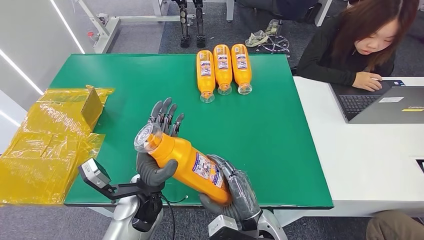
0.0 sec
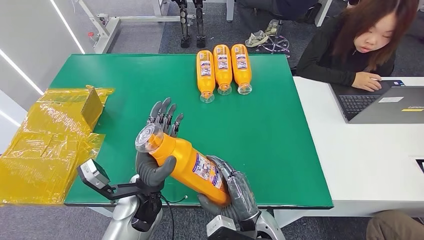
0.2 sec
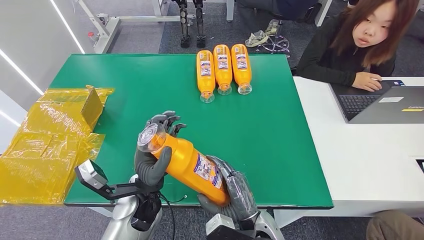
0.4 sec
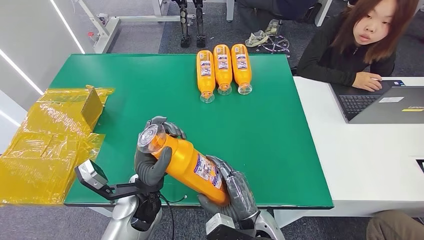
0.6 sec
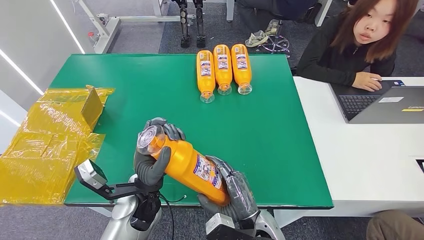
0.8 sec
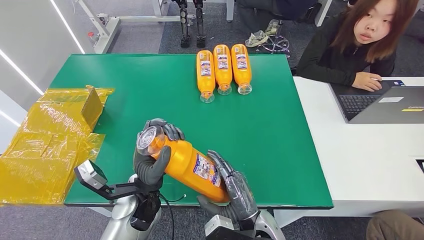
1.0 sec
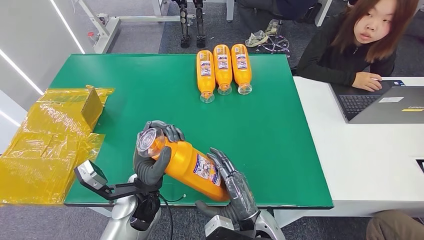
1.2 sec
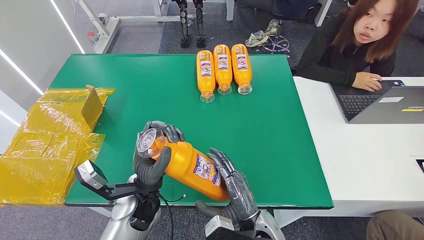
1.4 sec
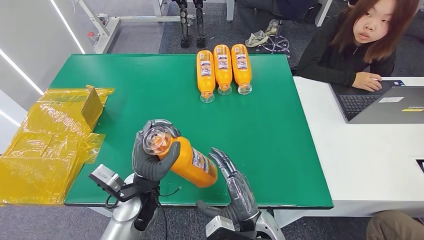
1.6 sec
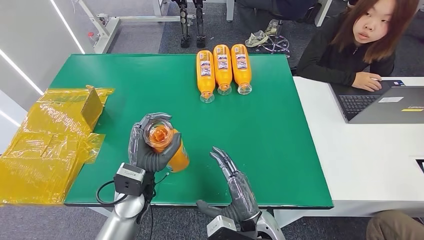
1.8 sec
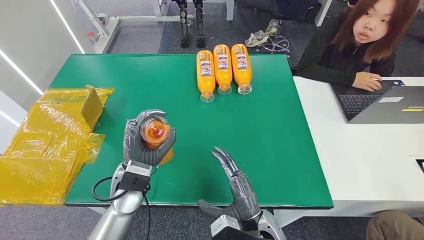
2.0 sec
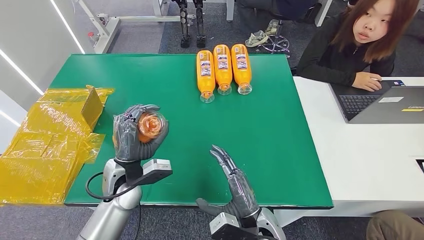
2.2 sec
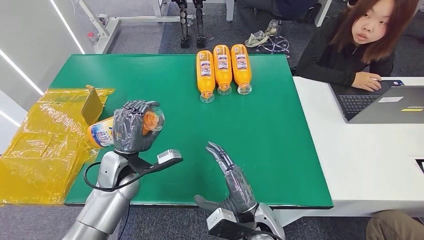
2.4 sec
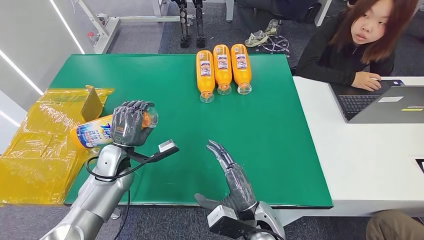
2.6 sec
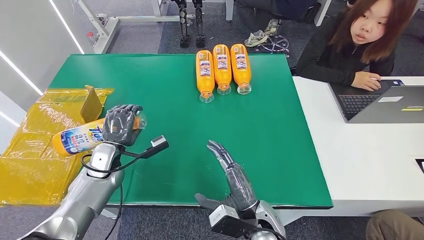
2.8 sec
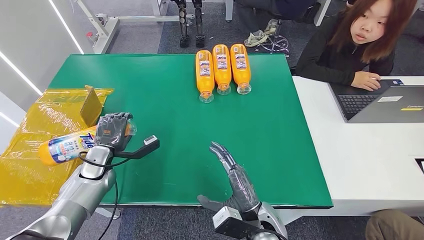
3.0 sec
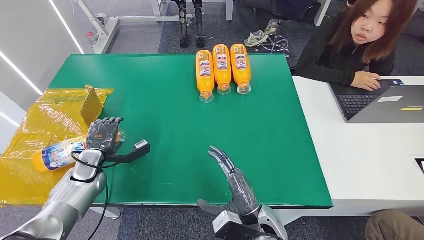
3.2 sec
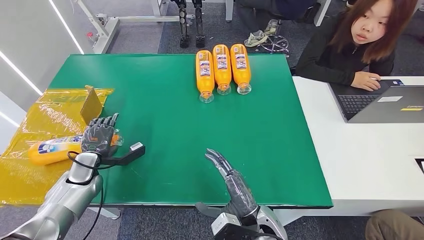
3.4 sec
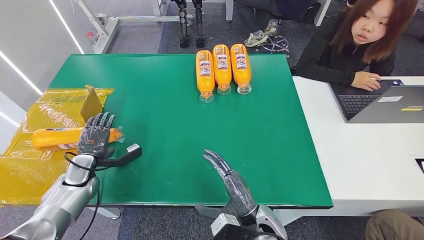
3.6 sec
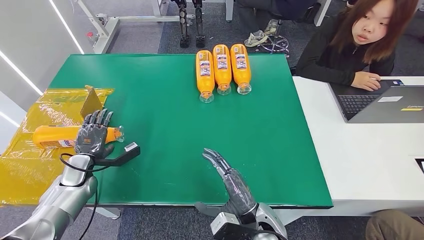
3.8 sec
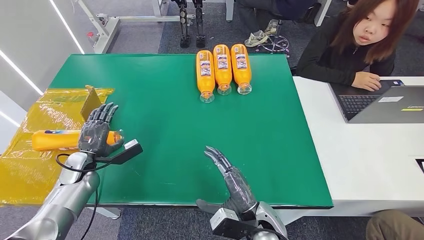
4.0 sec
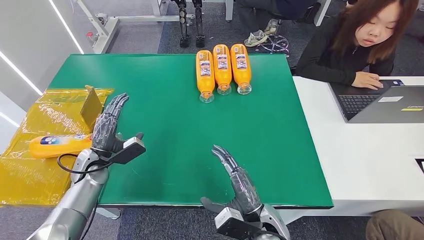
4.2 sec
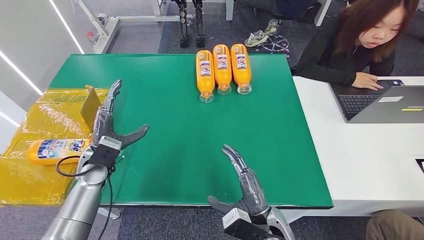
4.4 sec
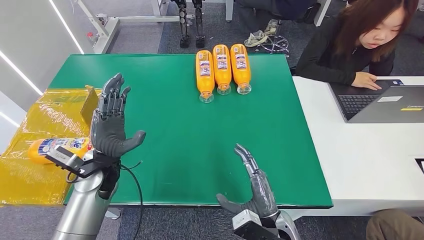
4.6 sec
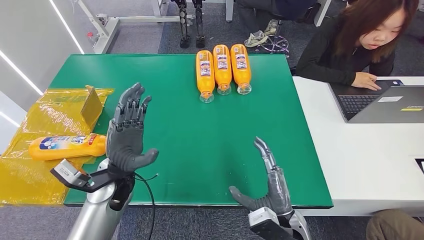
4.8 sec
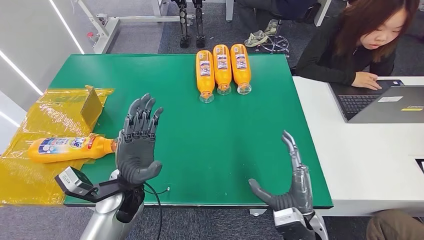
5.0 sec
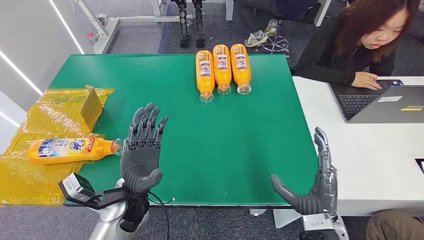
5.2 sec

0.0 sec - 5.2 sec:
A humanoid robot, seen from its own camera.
Step, 0.0 sec - 5.2 sec: Turn the bottle to the front side.
1.8 sec - 3.4 sec: The left hand goes approximately 25 cm to the left.
3.4 sec - 5.2 sec: The right hand travels to the right by approximately 10 cm. The left hand moves to the right, roughly 25 cm.

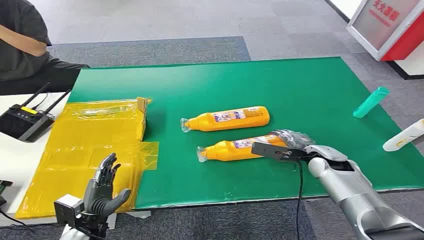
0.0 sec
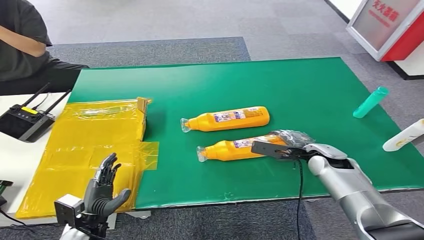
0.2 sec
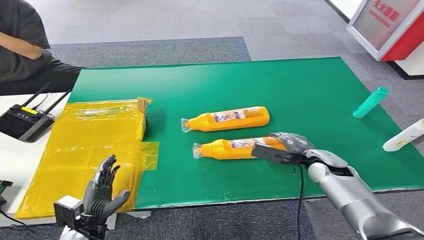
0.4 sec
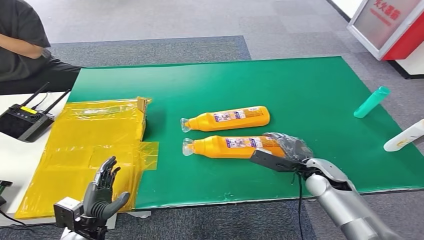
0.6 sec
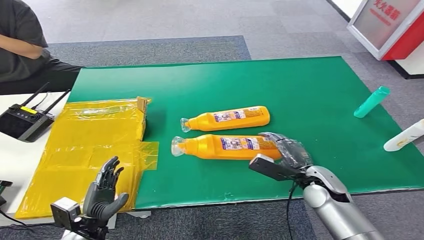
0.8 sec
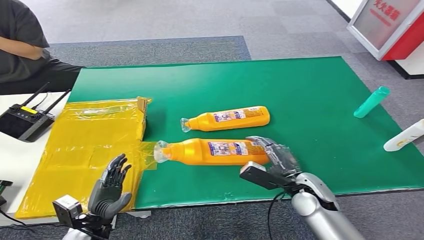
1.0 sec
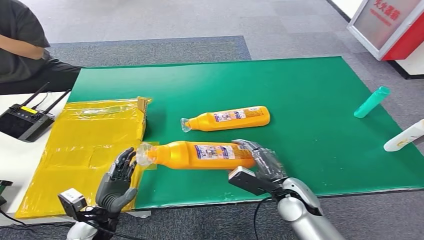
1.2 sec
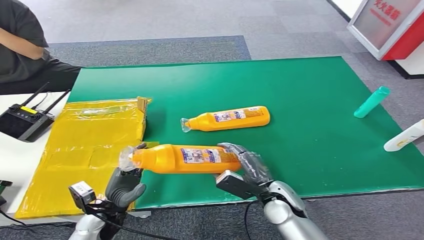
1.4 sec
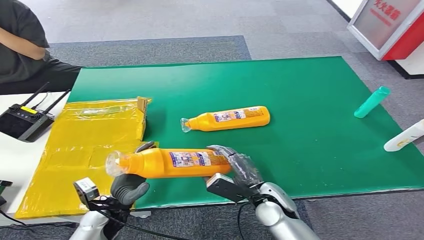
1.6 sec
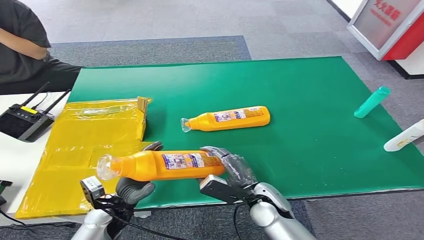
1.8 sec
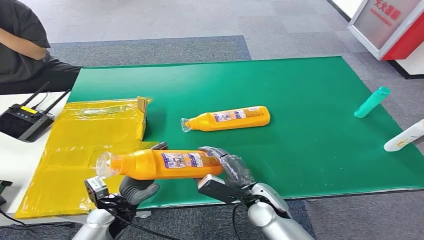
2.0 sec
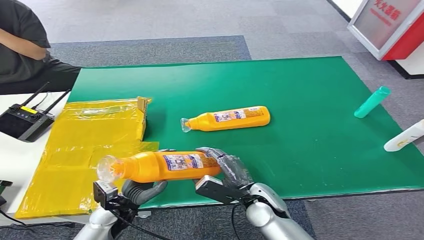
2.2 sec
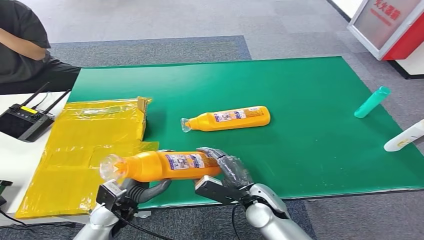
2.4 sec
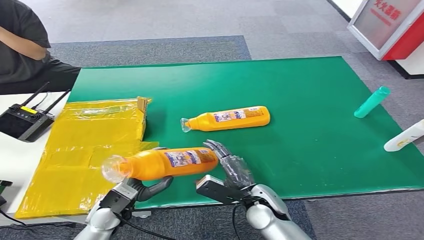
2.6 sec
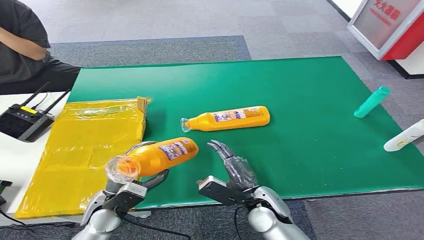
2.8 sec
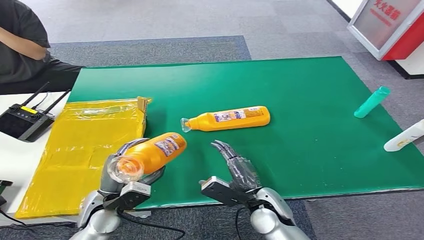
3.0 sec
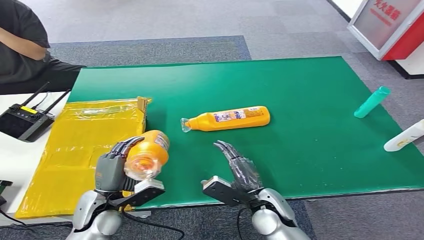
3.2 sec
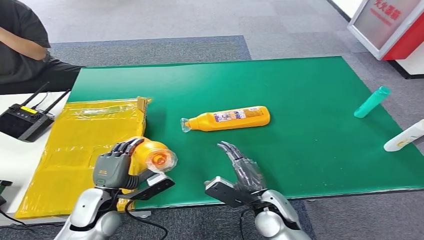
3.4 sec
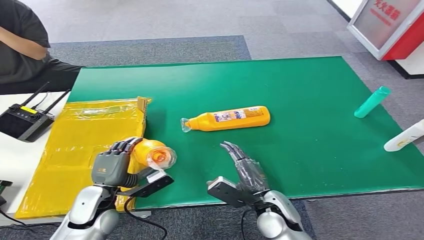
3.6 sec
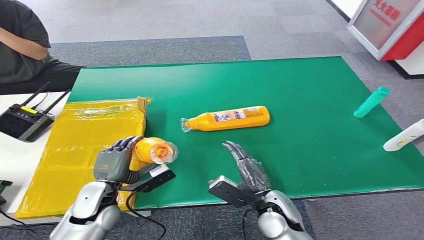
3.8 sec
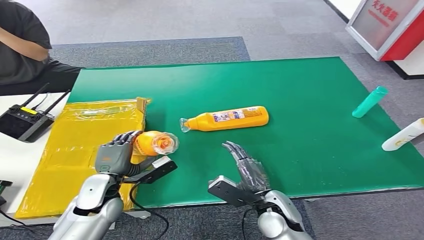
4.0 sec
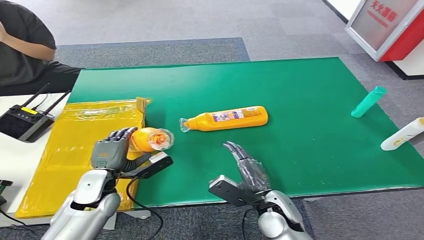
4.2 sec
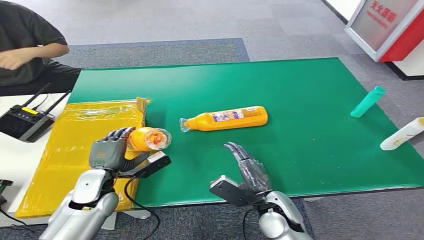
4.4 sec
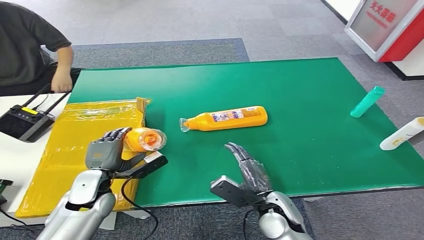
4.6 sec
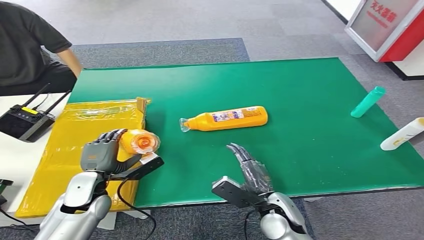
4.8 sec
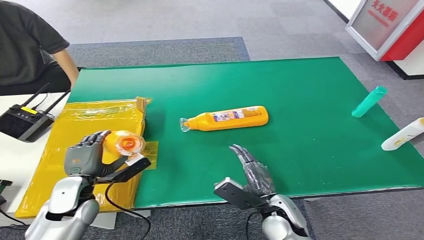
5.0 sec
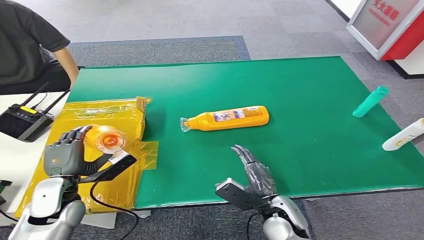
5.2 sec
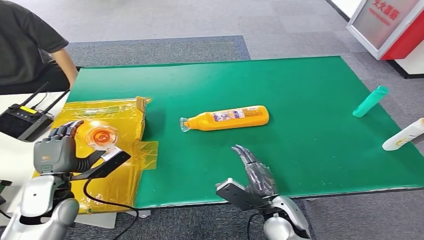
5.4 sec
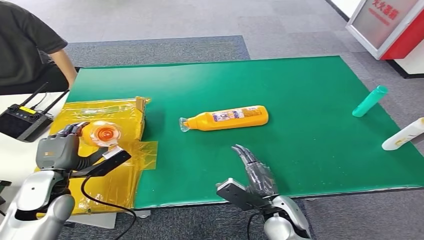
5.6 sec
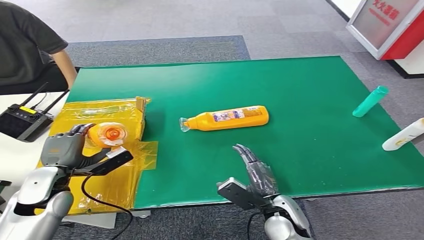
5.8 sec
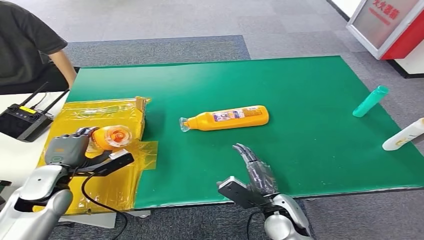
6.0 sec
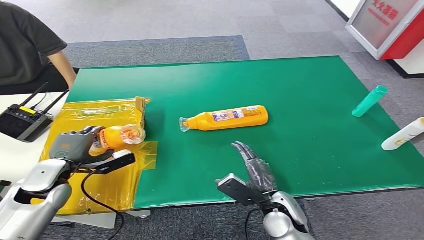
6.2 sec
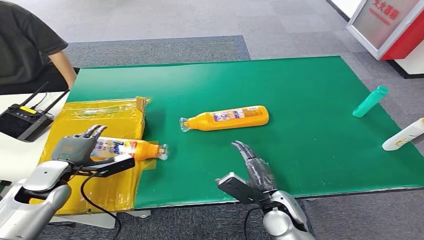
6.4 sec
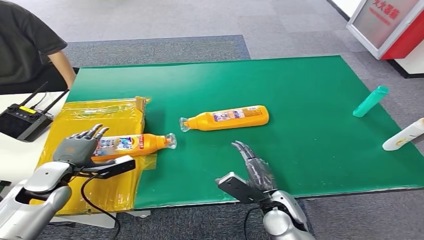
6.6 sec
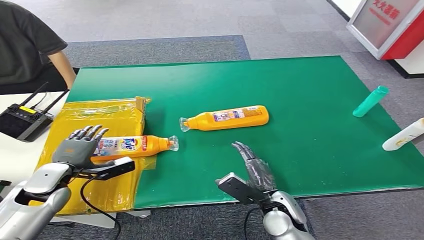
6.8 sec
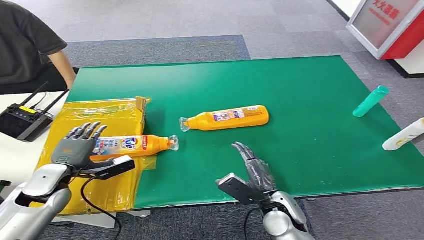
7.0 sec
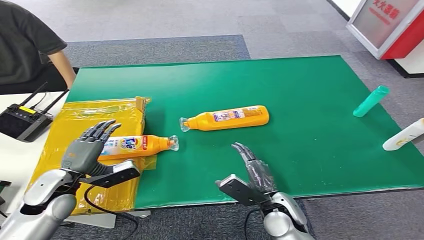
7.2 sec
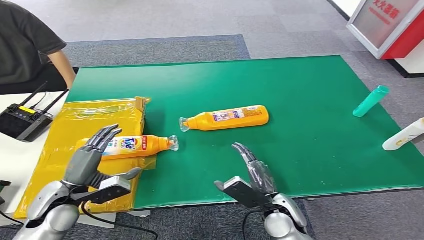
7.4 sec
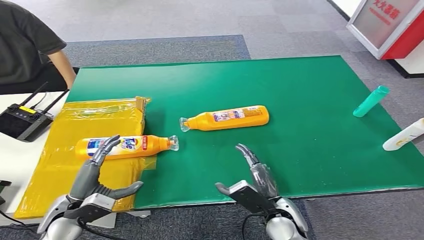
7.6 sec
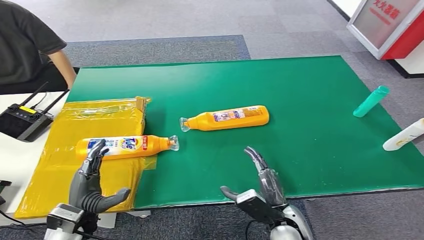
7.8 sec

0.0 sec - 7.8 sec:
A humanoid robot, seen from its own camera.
Step, 0.0 sec - 3.0 sec: Pick up the bottle from the table.
Step, 3.6 sec - 7.8 sec: Turn the bottle to the front side.
6.2 sec - 7.8 sec: The left hand goes roughly 15 cm backward, to the right and downward.

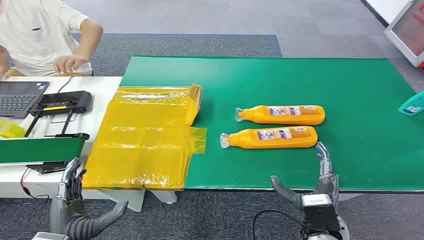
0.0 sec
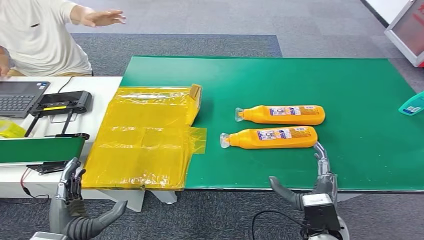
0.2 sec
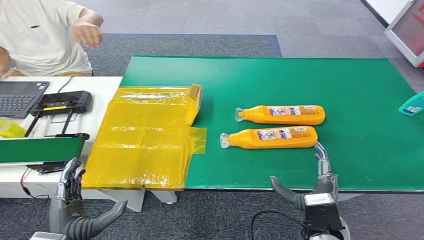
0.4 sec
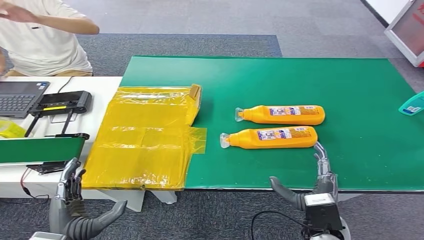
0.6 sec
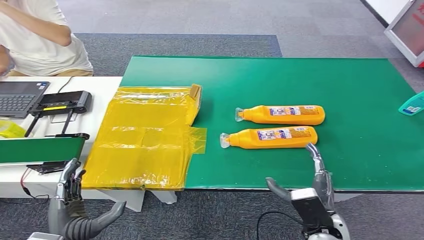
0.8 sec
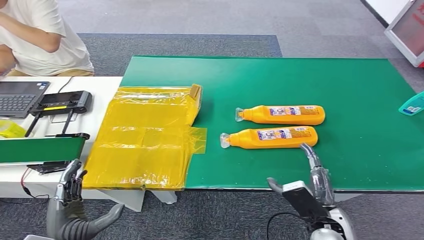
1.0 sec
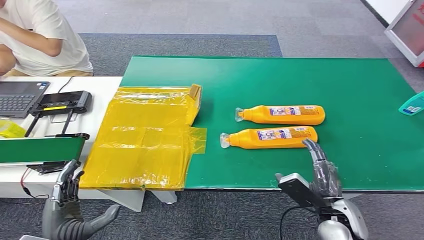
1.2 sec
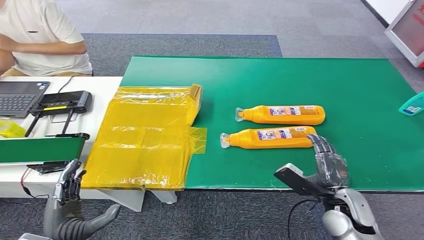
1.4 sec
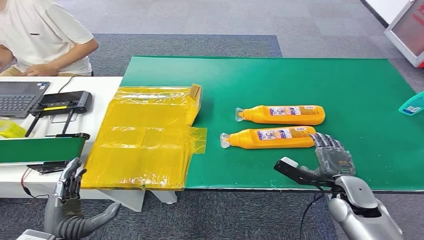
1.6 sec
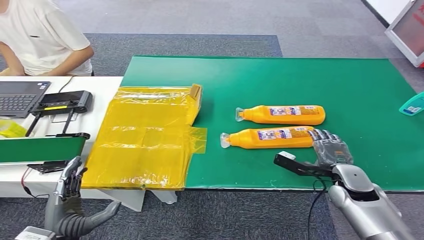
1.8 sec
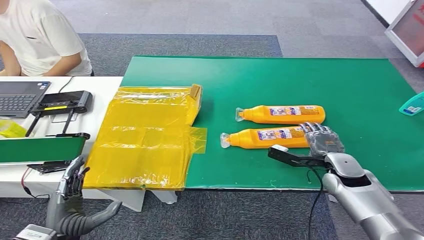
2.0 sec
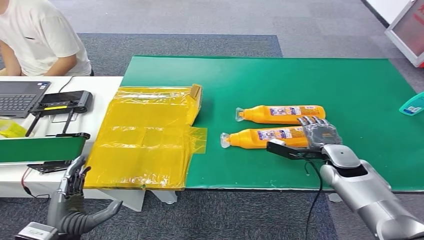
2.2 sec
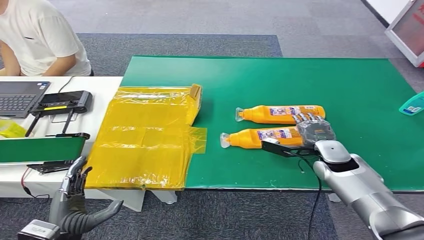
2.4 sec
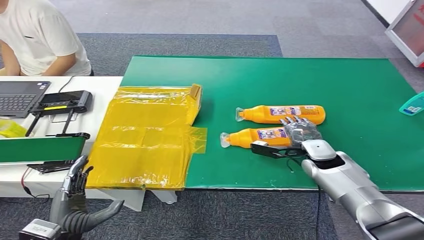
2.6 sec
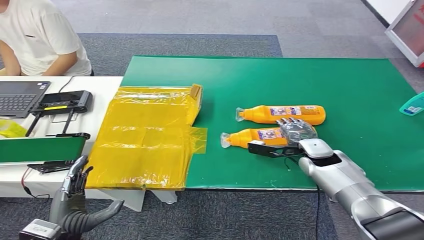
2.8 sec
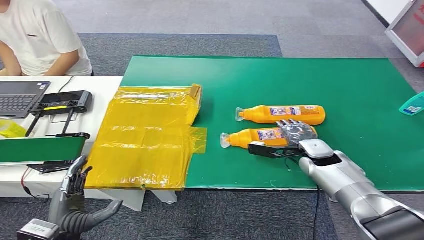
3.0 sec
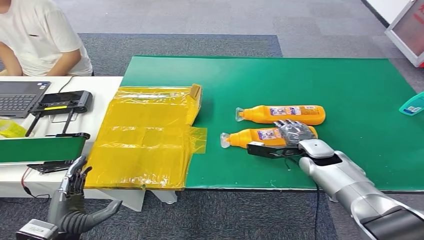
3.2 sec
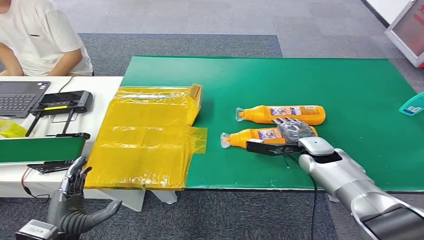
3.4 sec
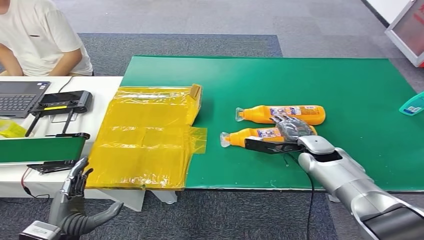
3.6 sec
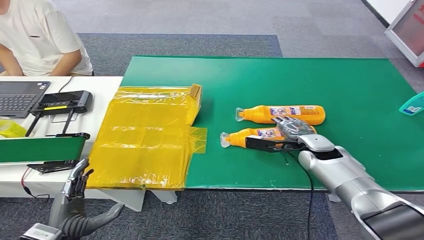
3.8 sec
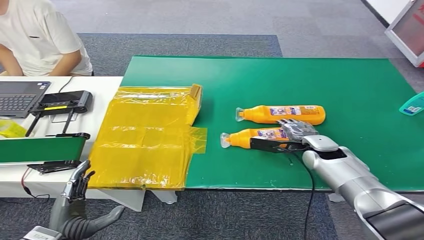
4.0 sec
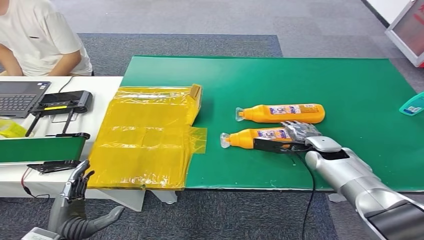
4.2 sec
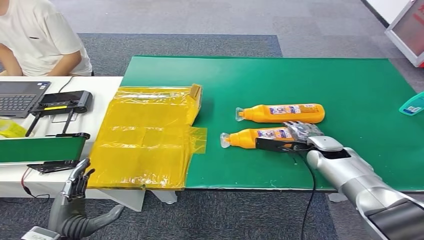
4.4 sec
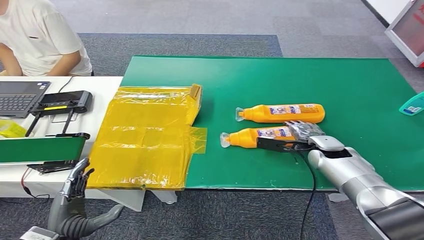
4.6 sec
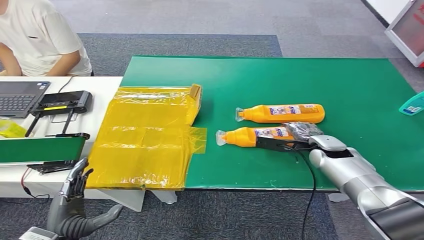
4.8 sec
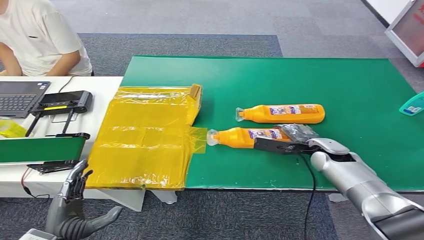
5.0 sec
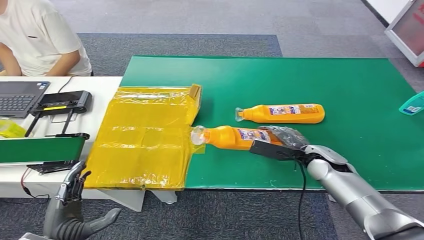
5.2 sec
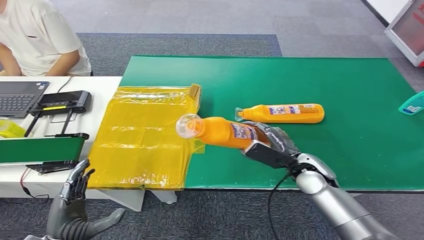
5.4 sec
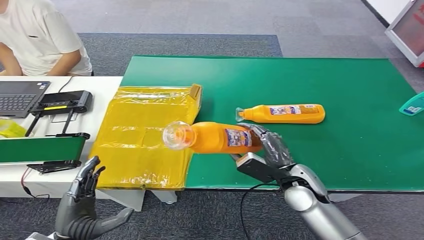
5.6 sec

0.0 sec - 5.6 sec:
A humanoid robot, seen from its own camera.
Step, 0.0 sec - 5.4 sec: Pick up the bottle from the table.
1.4 sec - 2.8 sec: The right hand shifts roughly 15 cm forward.
2.8 sec - 4.2 sec: The hands stay close to where they were, moving slightly.
4.2 sec - 5.6 sec: The right hand travels backward and to the left by about 15 cm.
